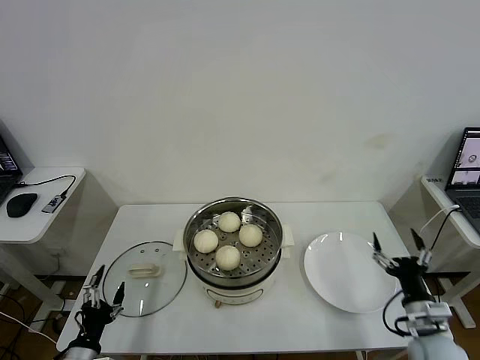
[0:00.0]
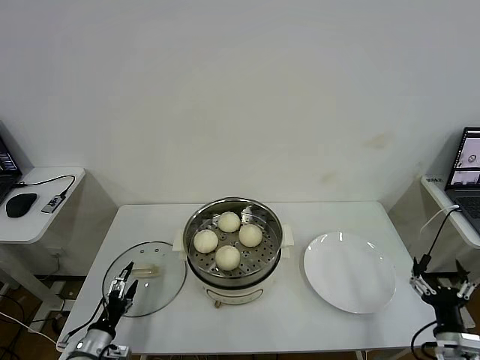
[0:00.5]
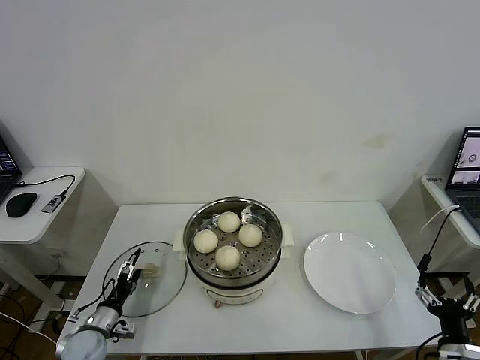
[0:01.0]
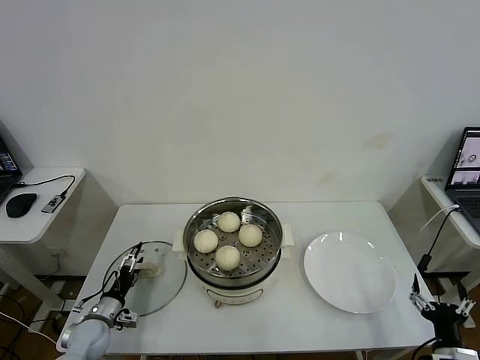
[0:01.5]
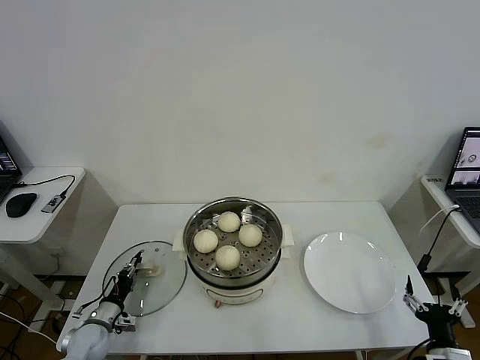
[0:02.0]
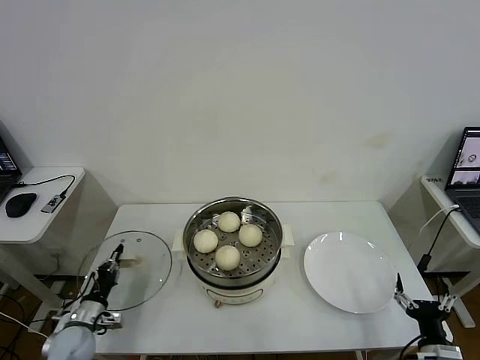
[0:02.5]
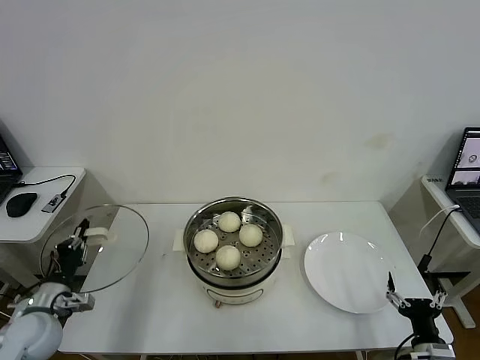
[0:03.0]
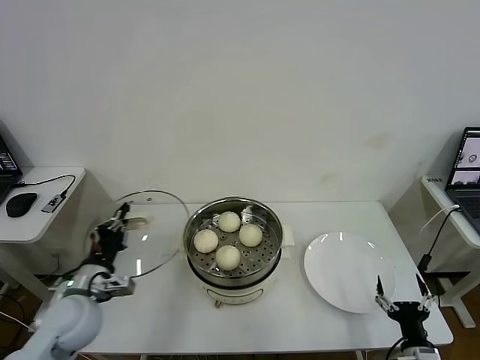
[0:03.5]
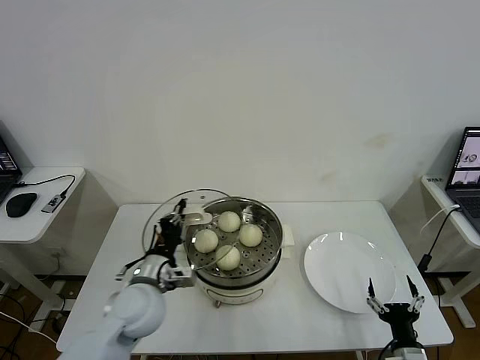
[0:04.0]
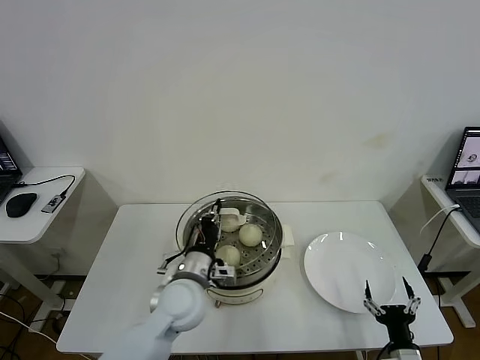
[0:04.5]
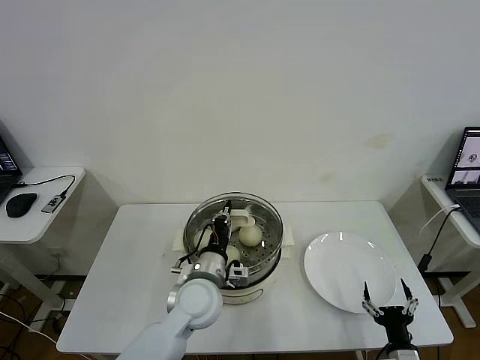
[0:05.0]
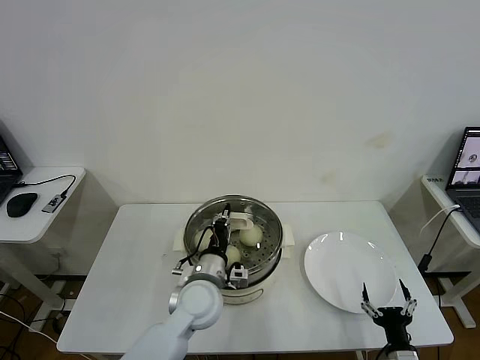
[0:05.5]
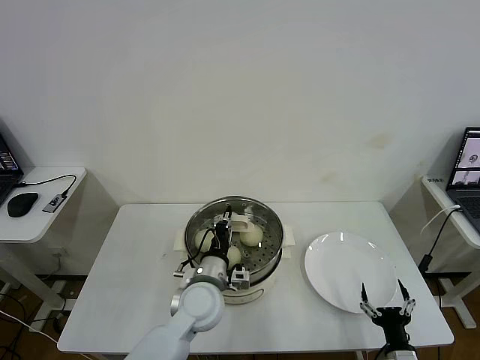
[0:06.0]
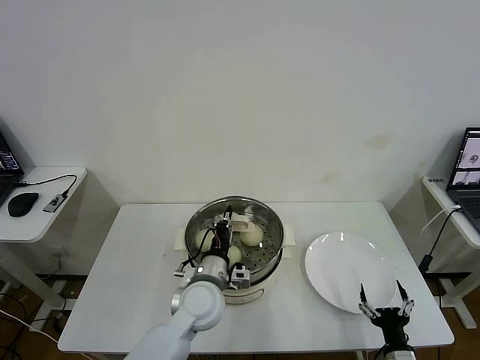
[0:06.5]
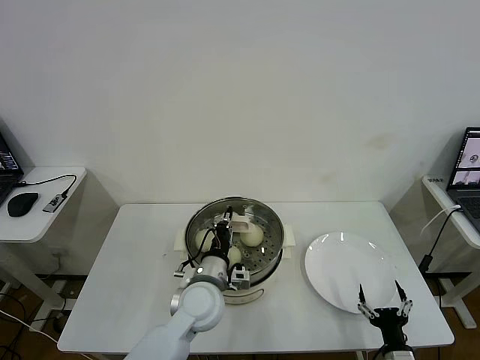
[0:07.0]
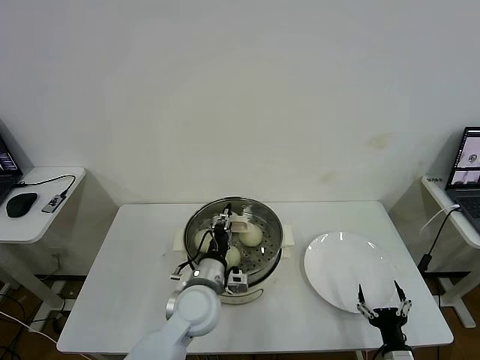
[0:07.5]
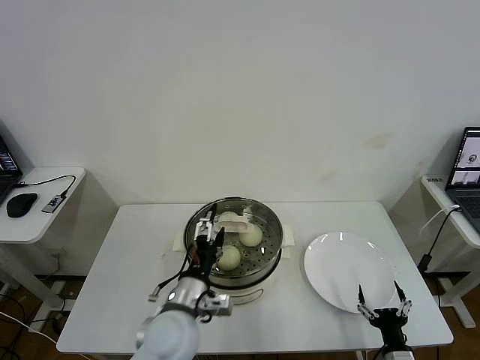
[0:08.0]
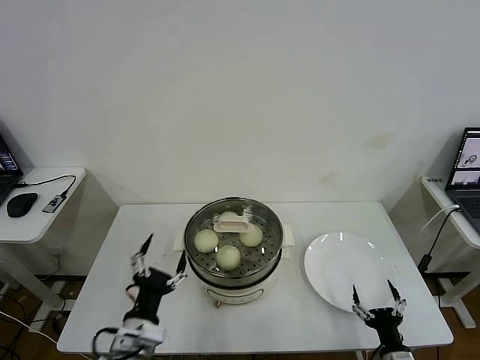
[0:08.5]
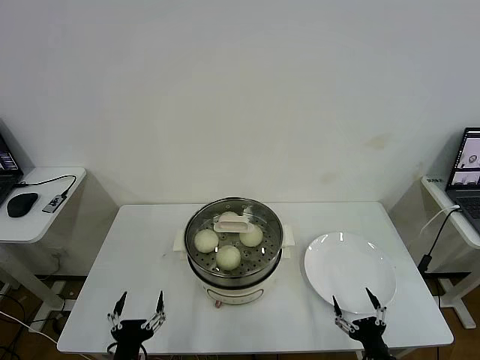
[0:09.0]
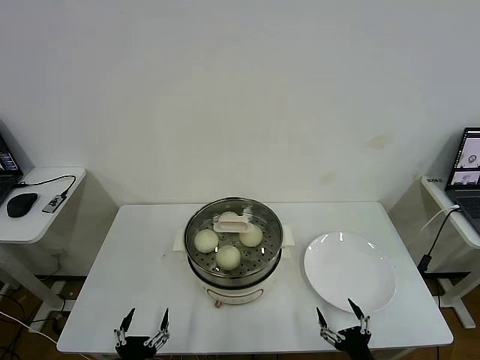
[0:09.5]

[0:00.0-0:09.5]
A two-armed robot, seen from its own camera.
Task of the whole recording: take steamed baozi put them in steamer then cover it.
Step, 0:00.0 to 0:02.0: Grasp the pot lid with left gripper.
Step, 0:02.5 to 0:08.0: Place the pot lid on the steamer with left gripper.
0:00.0 to 0:02.0: The right gripper heads backward, covering roughly 10 cm. Meanwhile the left gripper is displaced forward and downward by roughly 15 cm, and closes its fingers.
0:02.0 to 0:04.0: The right gripper travels to the left by about 5 cm; the left gripper moves upward and to the right, roughly 30 cm, and closes up.
0:04.0 to 0:05.5: The left gripper shifts some 10 cm to the right.
0:05.5 to 0:07.5: Both grippers stay put.
0:07.5 to 0:09.5: The left gripper goes approximately 30 cm backward, to the left and downward, and opens its fingers. The right gripper moves about 5 cm.
